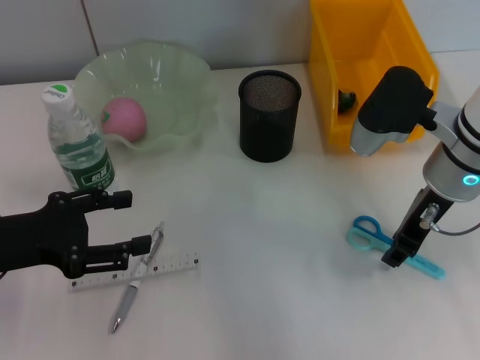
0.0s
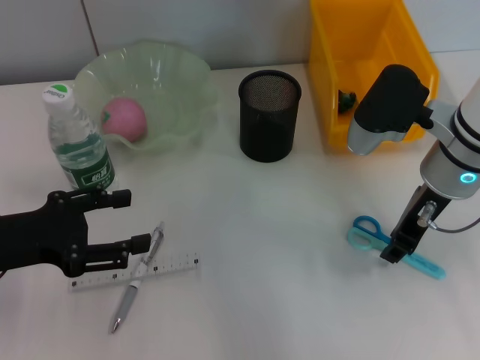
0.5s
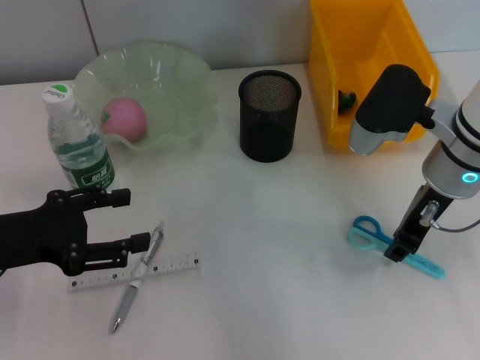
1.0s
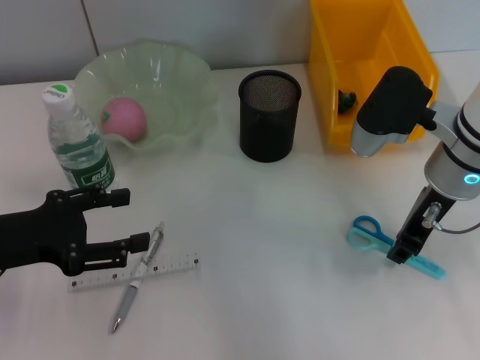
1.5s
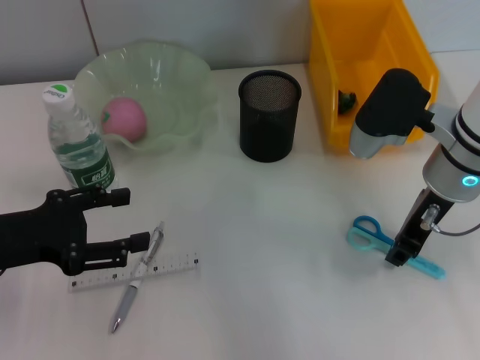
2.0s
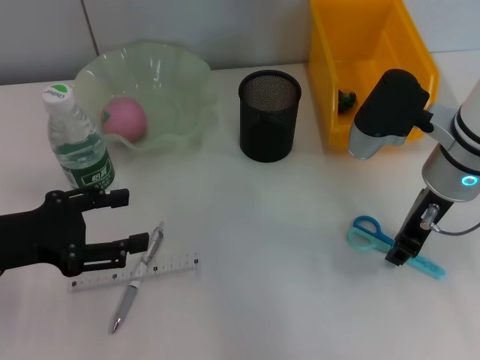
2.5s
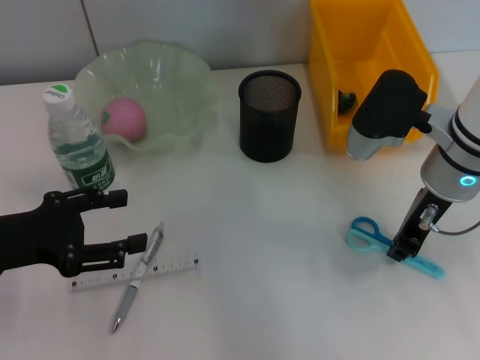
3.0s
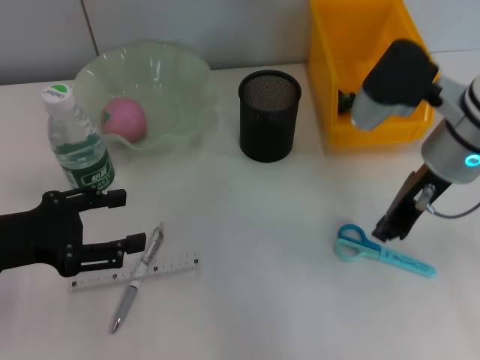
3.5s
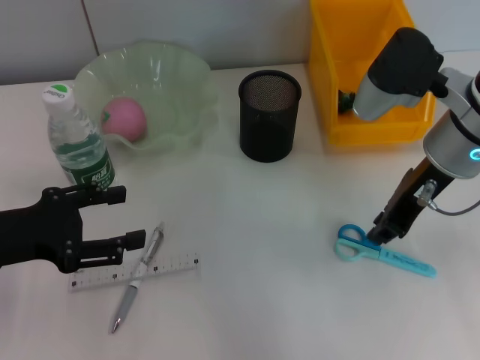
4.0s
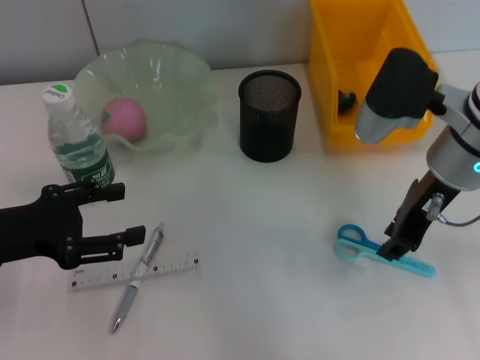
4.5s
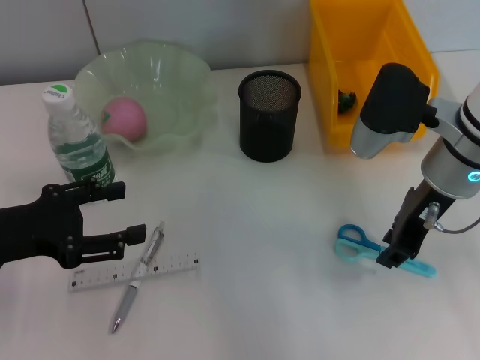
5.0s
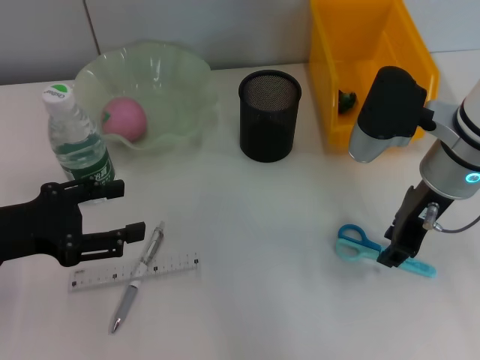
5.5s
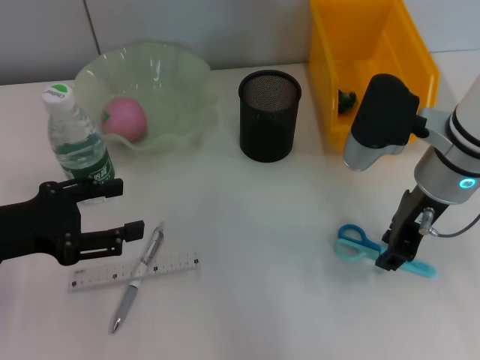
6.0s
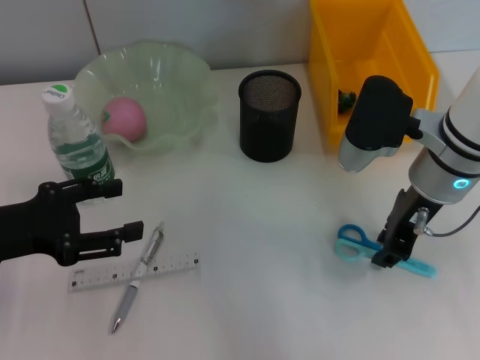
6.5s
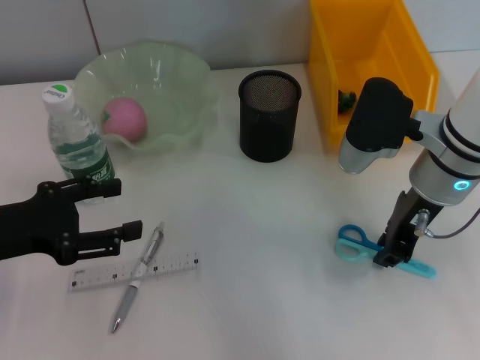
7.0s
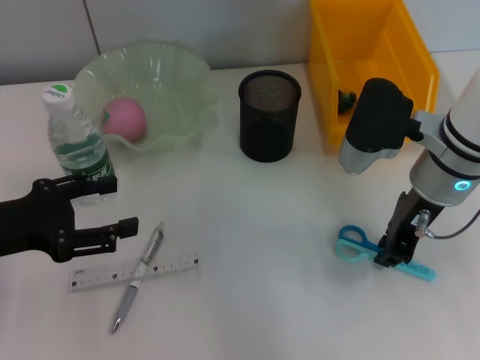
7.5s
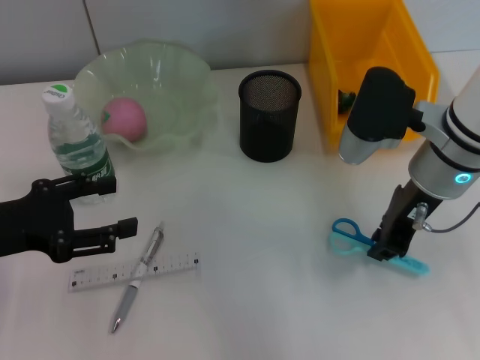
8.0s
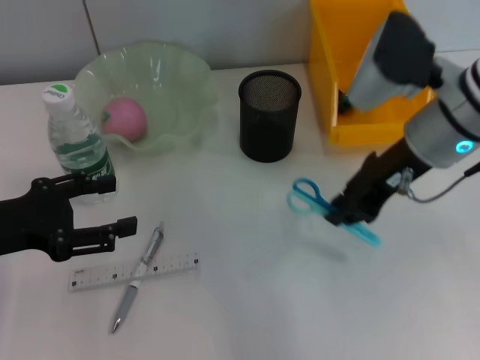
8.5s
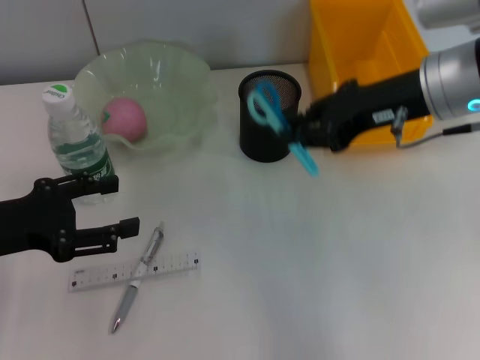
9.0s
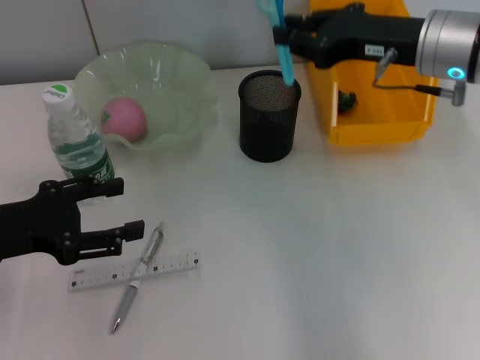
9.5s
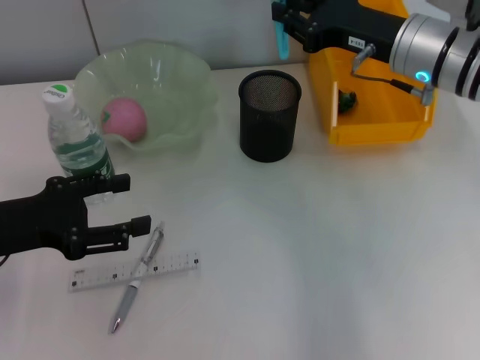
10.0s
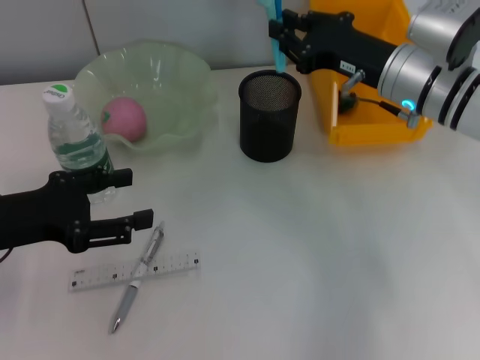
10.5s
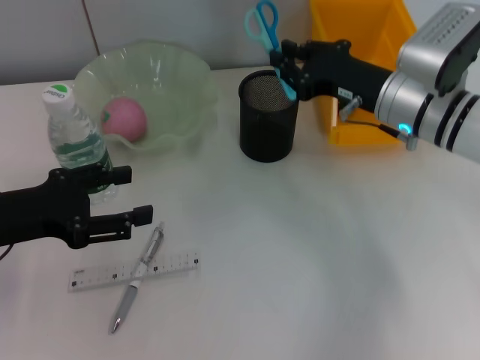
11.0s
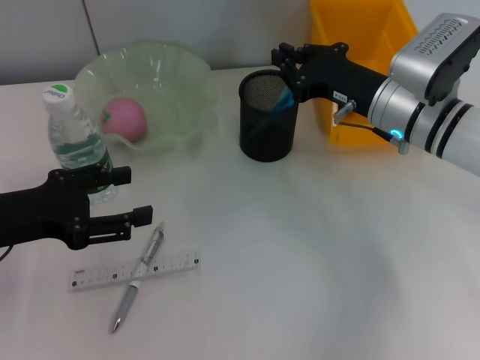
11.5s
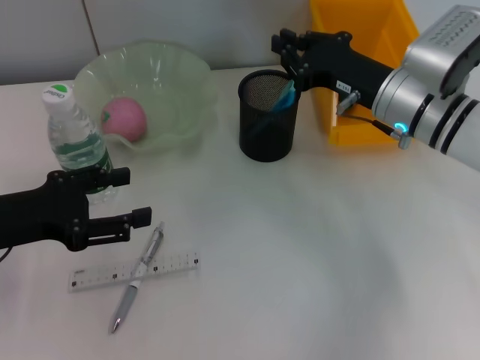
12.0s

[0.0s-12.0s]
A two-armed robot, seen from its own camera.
Step, 0.0s to 7.5s: Grab the blue scissors with the right hand.
Step, 8.0s to 11.0s: Place the blue scissors into the pen holder with the right hand.
0.0s to 2.0s: Neither gripper changes place.
2.0s to 6.0s: There are only small adjustments of the grippers.
6.0s to 8.0s: Neither gripper changes place.
8.0s to 10.0s: The right gripper travels forward by some 5 cm.
10.0s to 12.0s: The right gripper shifts approximately 5 cm downward.

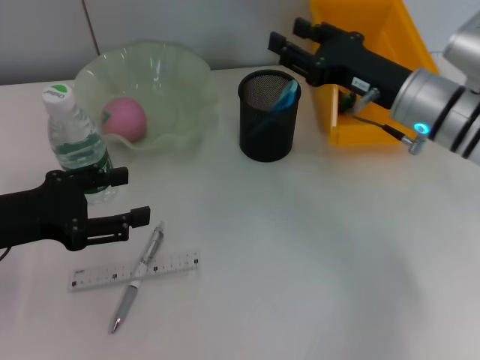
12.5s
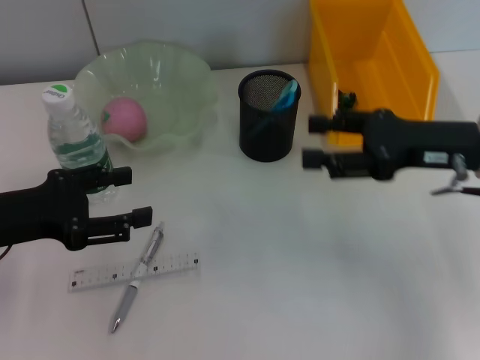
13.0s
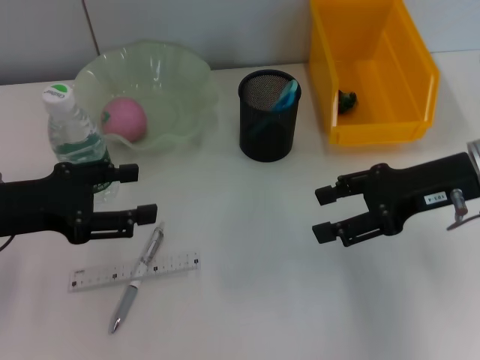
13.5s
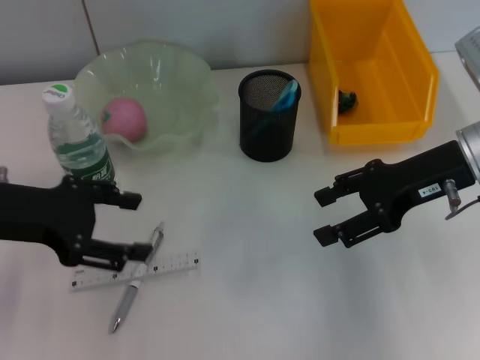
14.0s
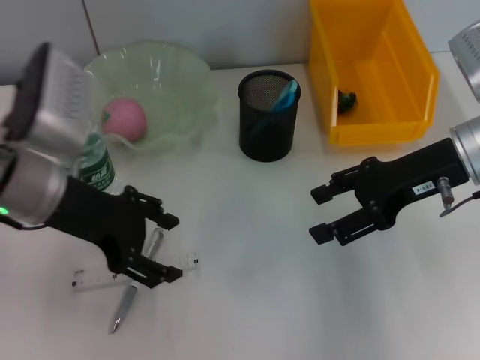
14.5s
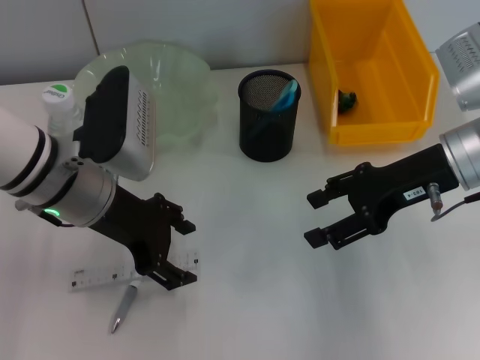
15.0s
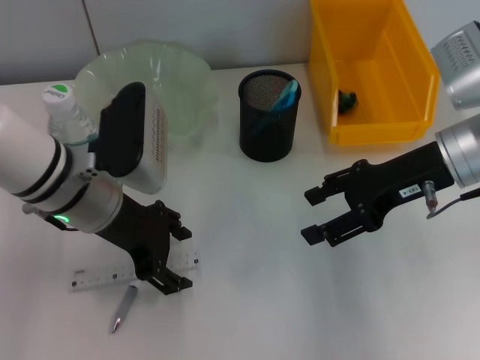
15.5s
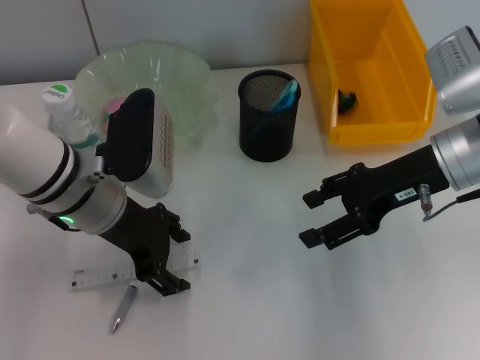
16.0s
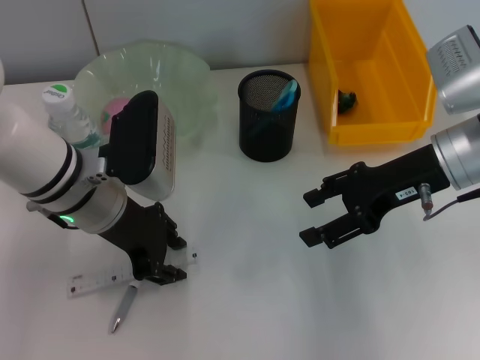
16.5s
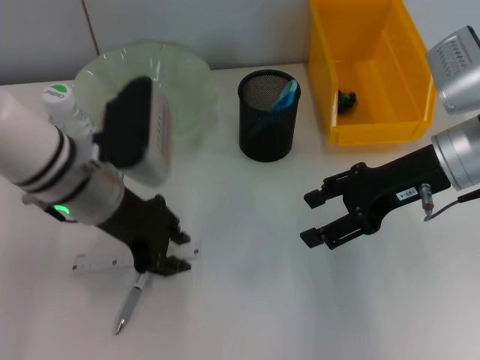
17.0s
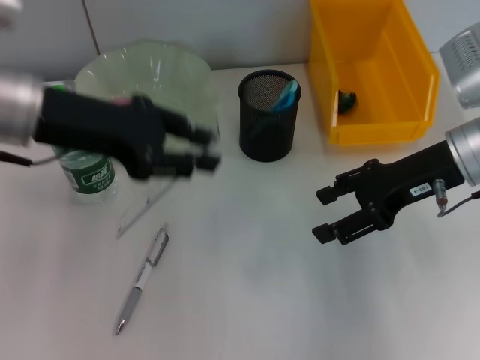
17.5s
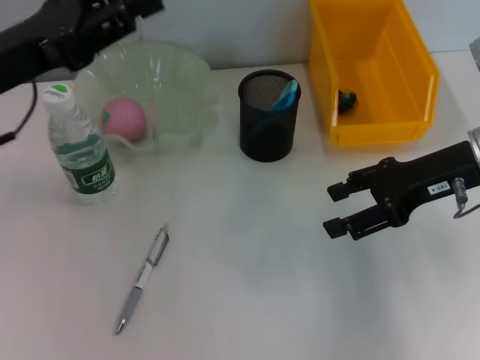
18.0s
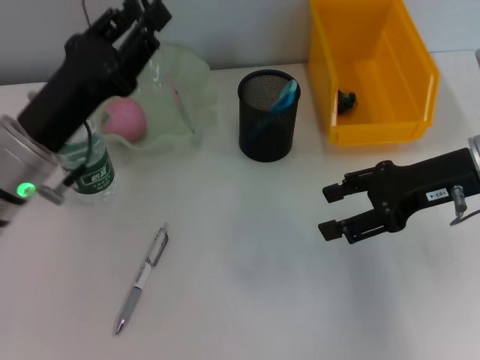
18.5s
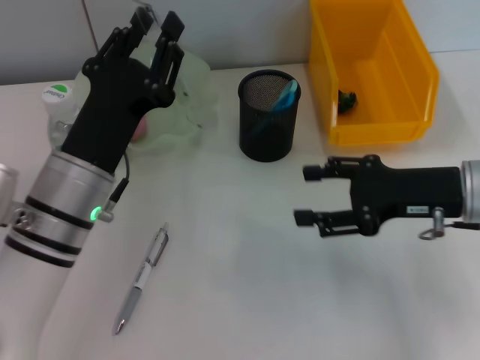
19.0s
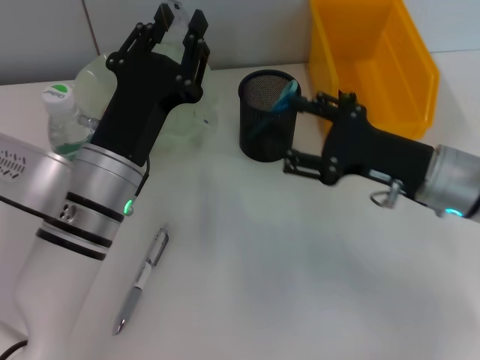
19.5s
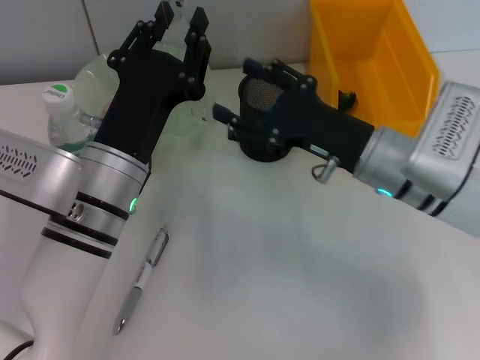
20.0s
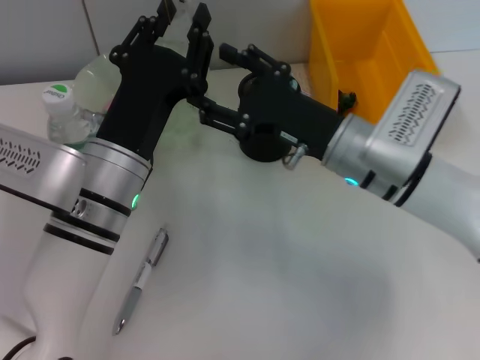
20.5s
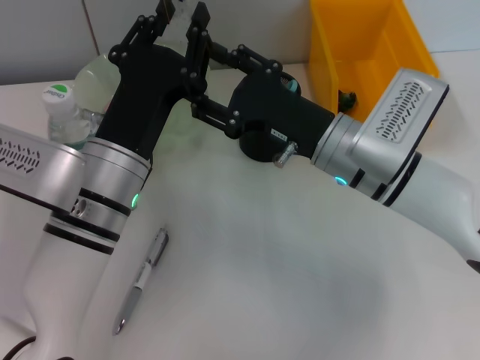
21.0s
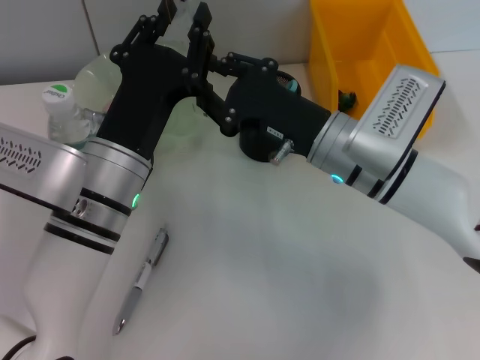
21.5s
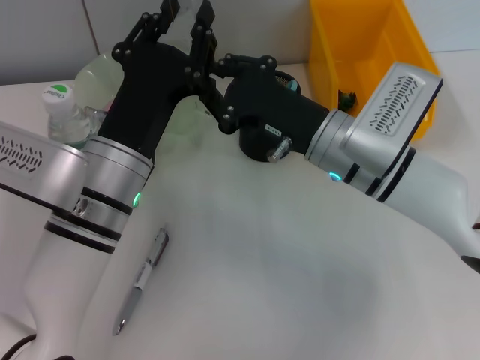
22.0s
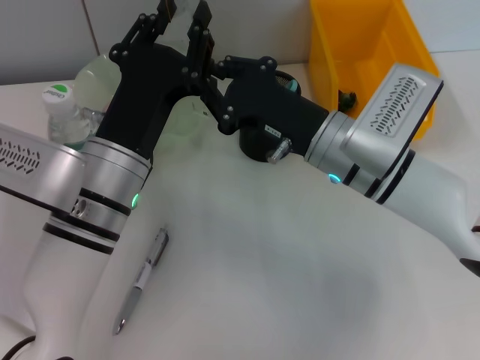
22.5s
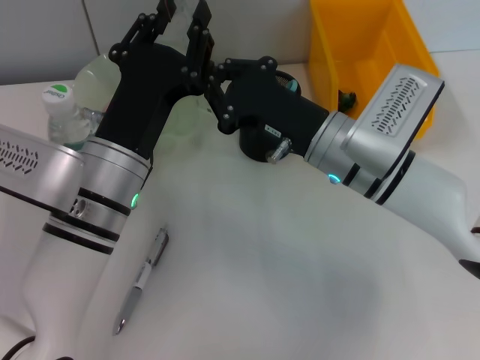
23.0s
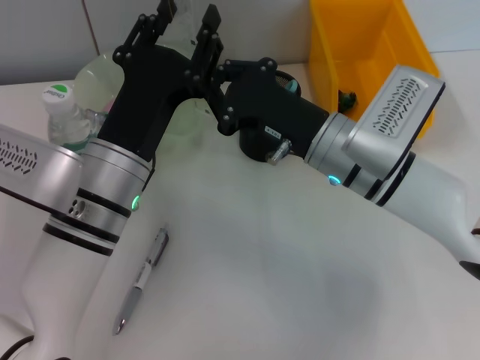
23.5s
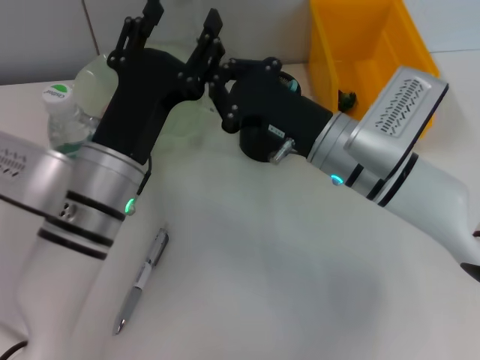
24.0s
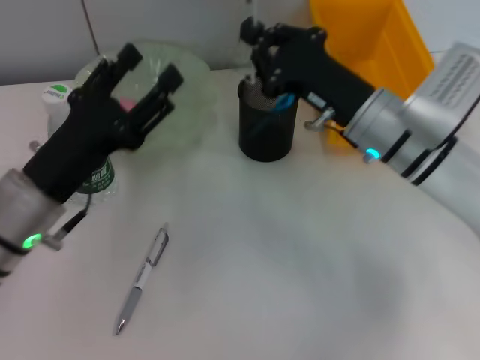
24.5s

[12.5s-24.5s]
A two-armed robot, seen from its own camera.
Step, 12.5s to 16.5s: Grab the ruler with the left hand.
Step, 17.0s to 23.0s: Pass the ruler from the left hand to the right hand.
12.5s to 14.5s: The left gripper is displaced to the right by about 10 cm. Meanwhile the right gripper changes place by approximately 5 cm, and opens up.
14.5s to 16.5s: The left gripper shifts approximately 5 cm to the right.
16.5s to 18.5s: The left gripper is displaced to the left by approximately 5 cm, and goes upward and returns, about 10 cm each way.
18.5s to 20.5s: The right gripper heads to the left, covering roughly 10 cm, while the left gripper moves to the right, some 10 cm.
20.5s to 22.5s: The right gripper closes.
22.5s to 24.5s: The left gripper moves to the left, some 10 cm, and opens up.

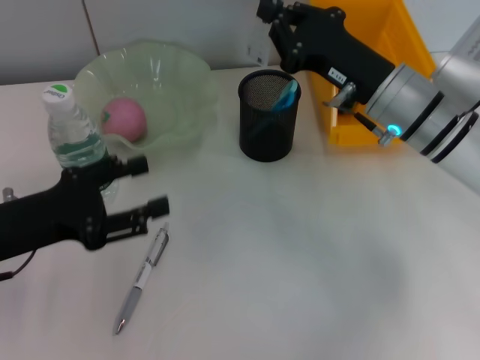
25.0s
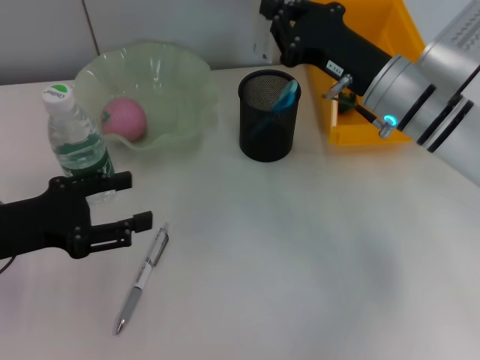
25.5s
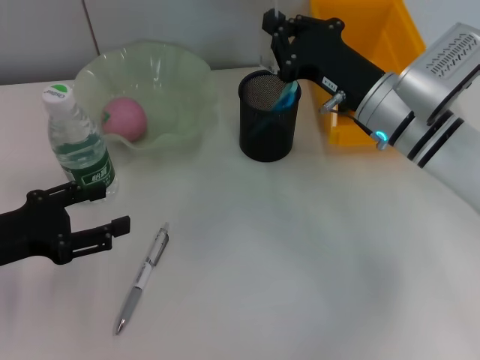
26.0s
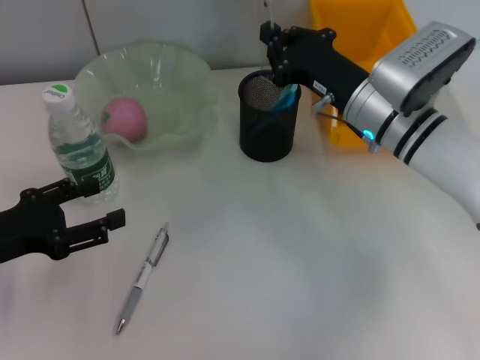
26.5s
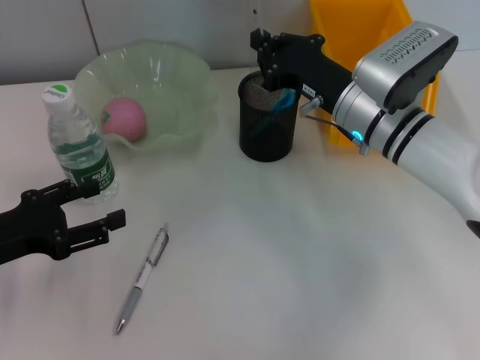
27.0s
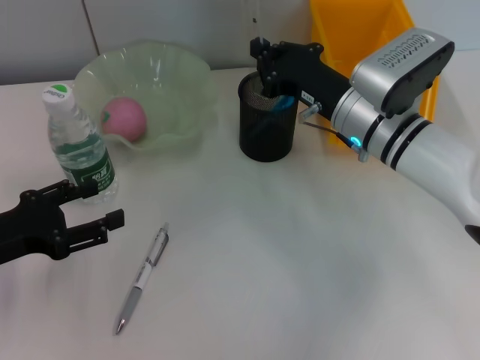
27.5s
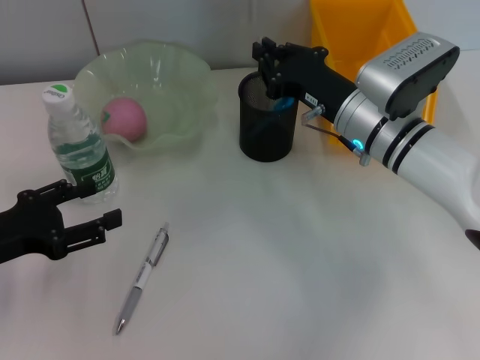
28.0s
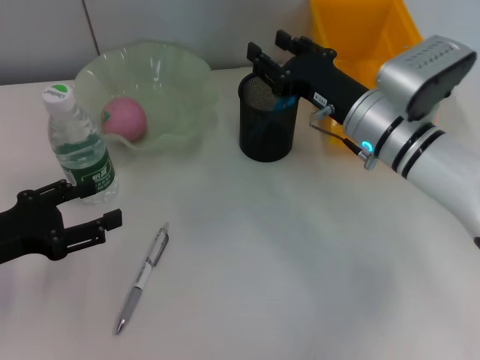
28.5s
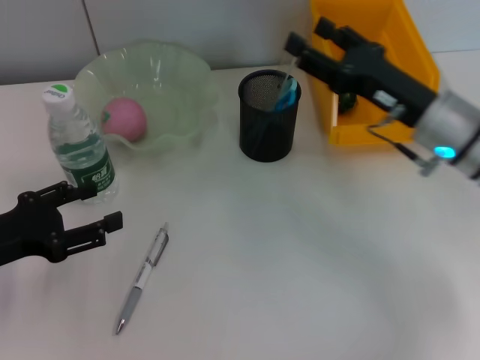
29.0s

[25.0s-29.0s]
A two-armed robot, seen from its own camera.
Step, 25.0s to 28.0s: Place the ruler into the pen holder with the right hand.
25.0s to 27.0s: The grippers make only small movements.
27.0s to 29.0s: The right gripper moves to the right, some 5 cm, and opens up.
